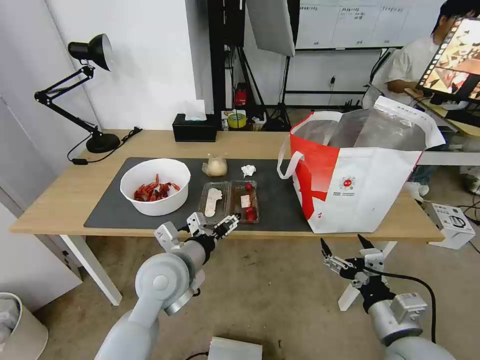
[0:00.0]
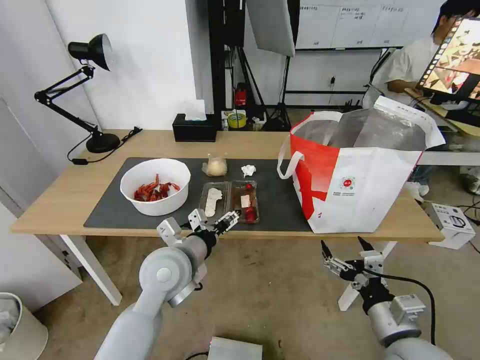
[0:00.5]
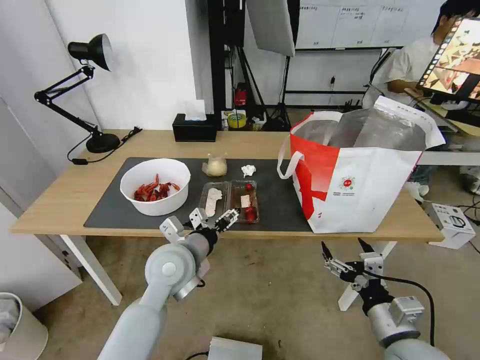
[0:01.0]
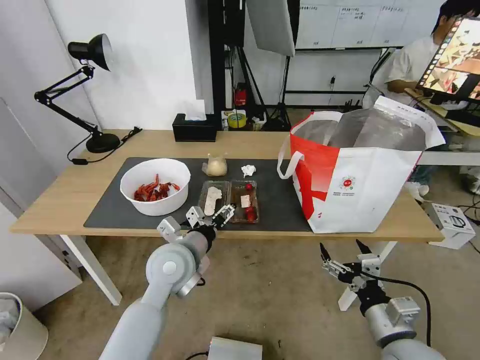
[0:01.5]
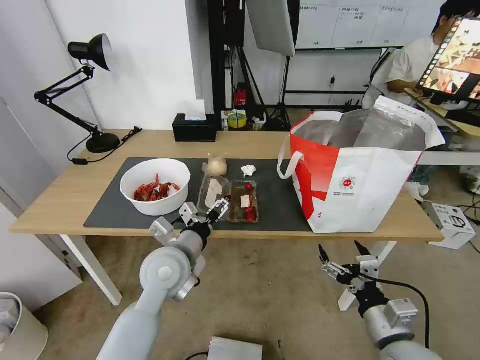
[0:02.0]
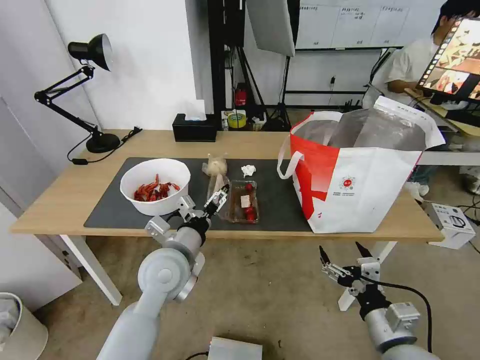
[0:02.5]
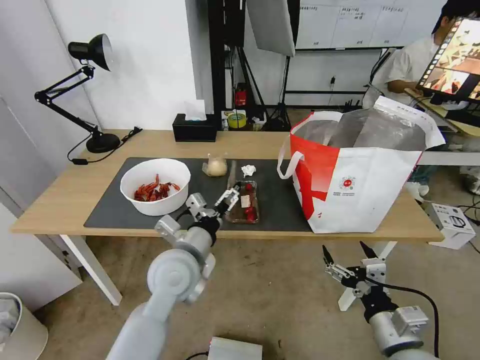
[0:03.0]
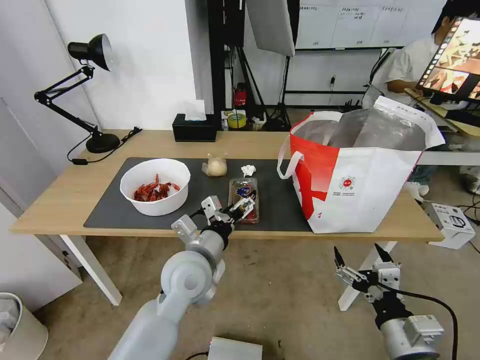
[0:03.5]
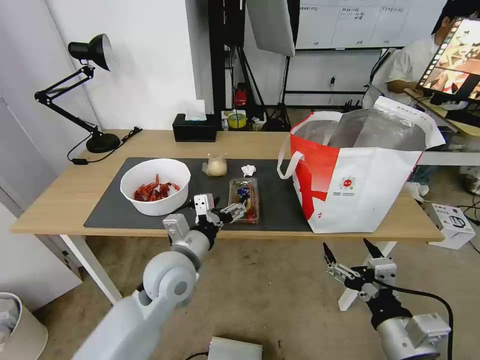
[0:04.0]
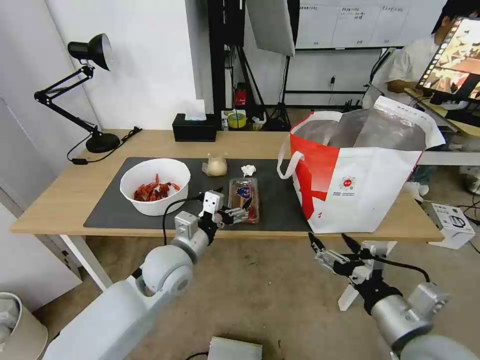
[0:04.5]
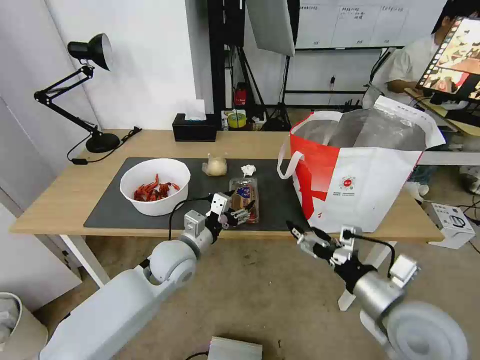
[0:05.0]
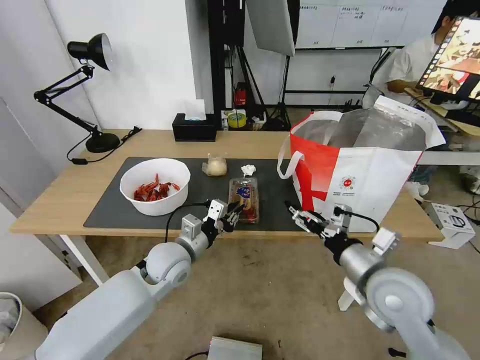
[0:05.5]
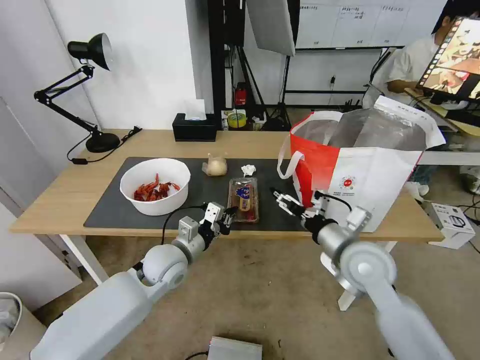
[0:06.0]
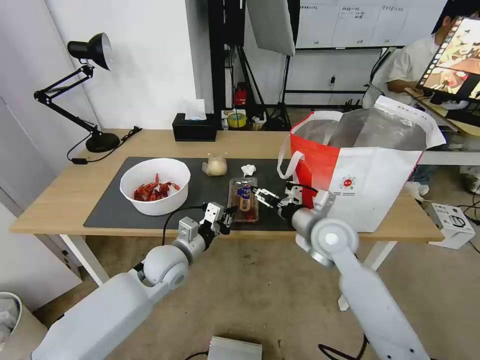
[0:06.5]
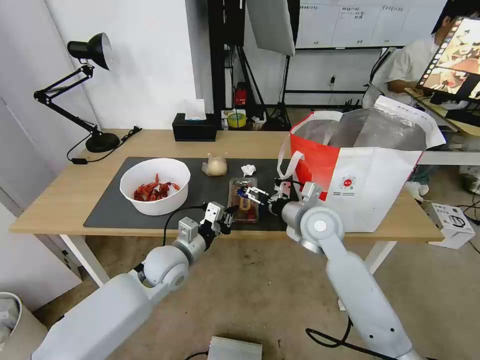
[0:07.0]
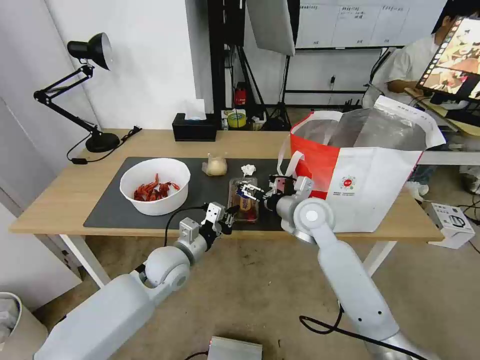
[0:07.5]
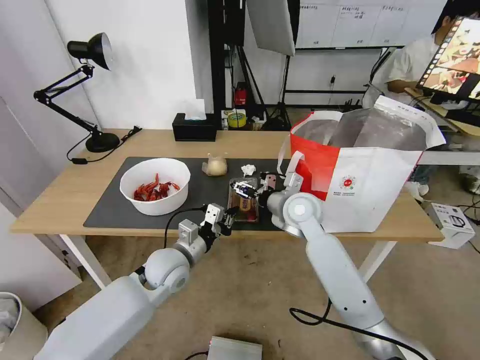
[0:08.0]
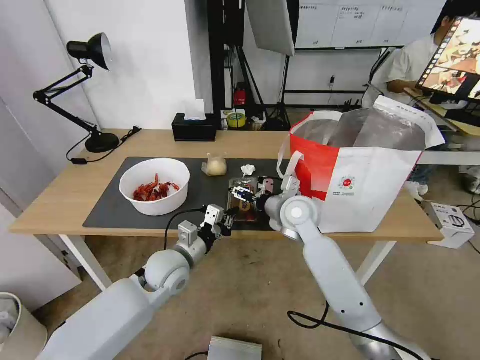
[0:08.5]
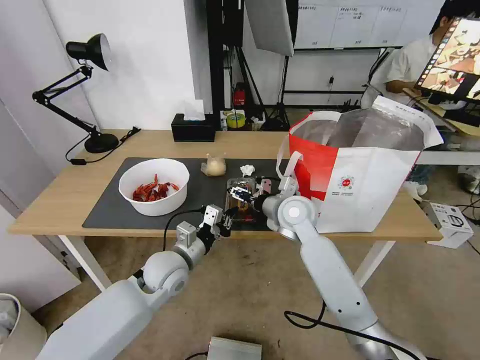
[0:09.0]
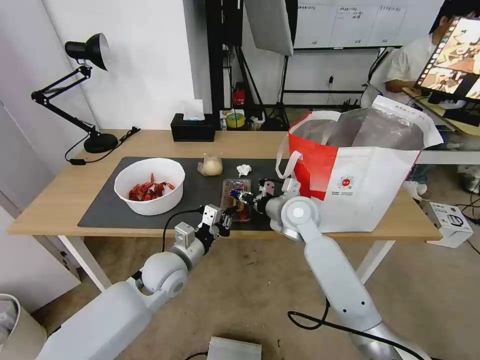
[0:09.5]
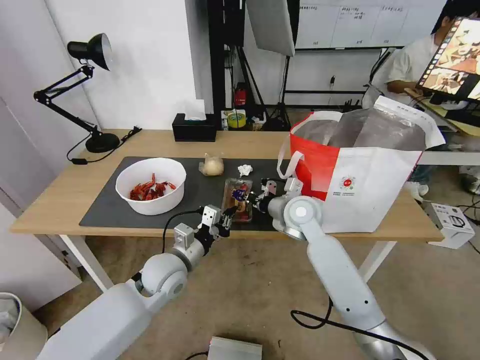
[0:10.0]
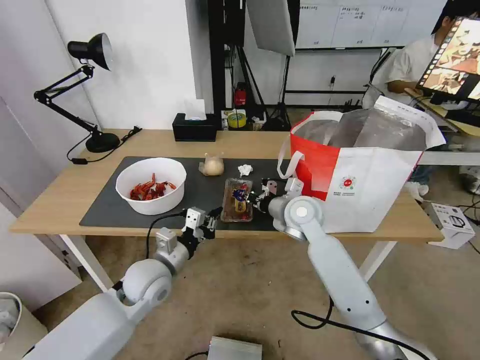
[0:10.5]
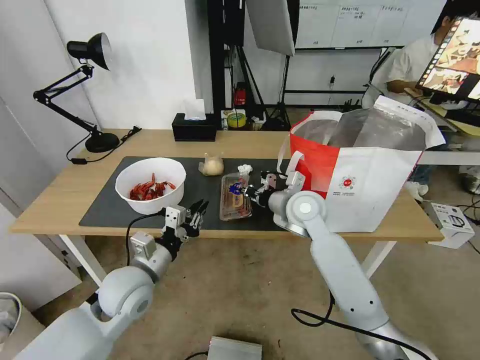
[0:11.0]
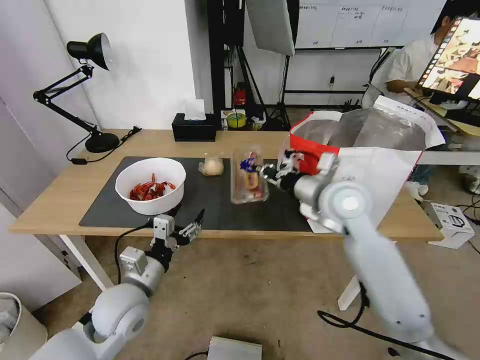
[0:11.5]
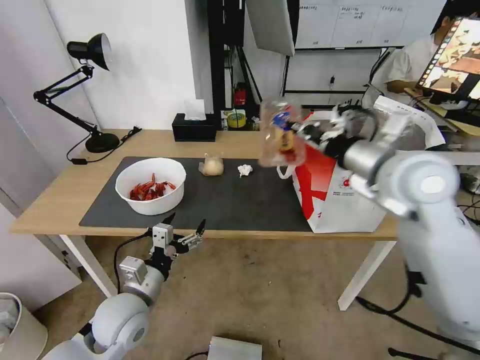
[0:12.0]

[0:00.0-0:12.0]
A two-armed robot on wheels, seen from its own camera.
Task of the whole recording: Pick up the trash from the table and place it into the takeout bag.
0:00.0 to 0:02.0: The grippers stay close to where they were, moving slightly.
0:02.0 to 0:04.0: The right gripper heads upward, covering roughly 5 cm.
0:04.0 to 0:06.0: The right gripper travels forward by about 20 cm, while the left gripper travels downward and forward by roughly 10 cm, and closes its fingers.
0:06.0 to 0:08.0: The right gripper is displaced forward and to the left by approximately 15 cm.
0:08.0 to 0:10.0: The right gripper closes up.
0:10.0 to 0:12.0: The left gripper heads backward and to the left, covering about 10 cm, and opens its fingers. Meanwhile the right gripper travels upward, to the right and backward by some 25 cm.

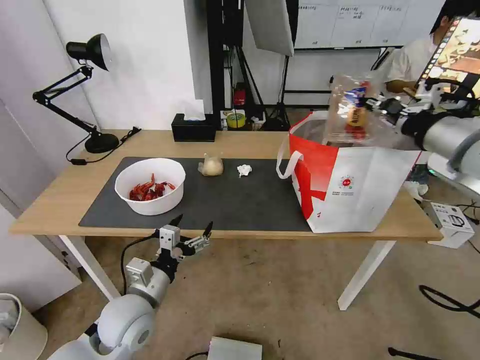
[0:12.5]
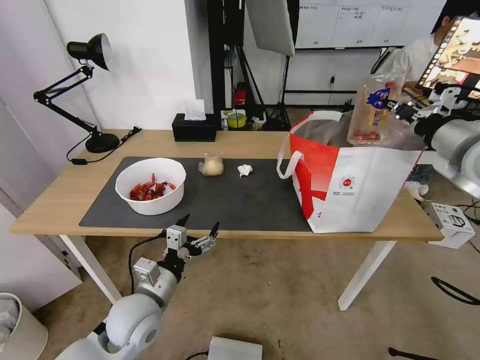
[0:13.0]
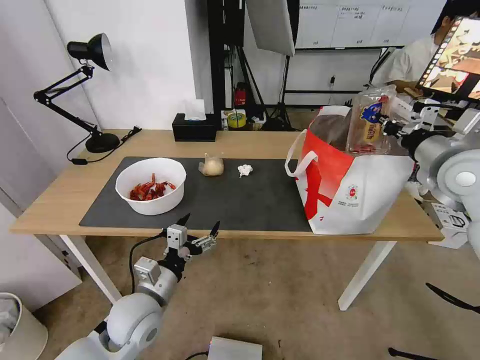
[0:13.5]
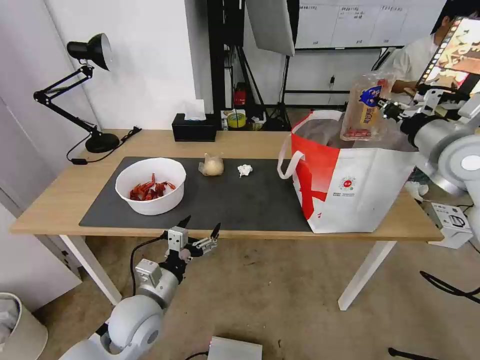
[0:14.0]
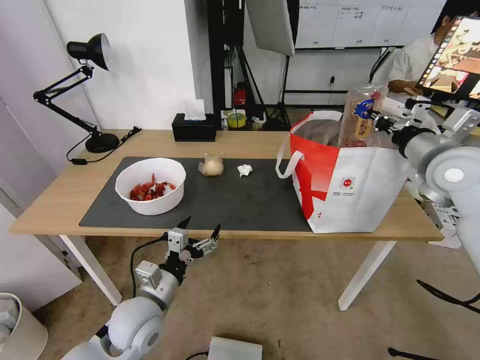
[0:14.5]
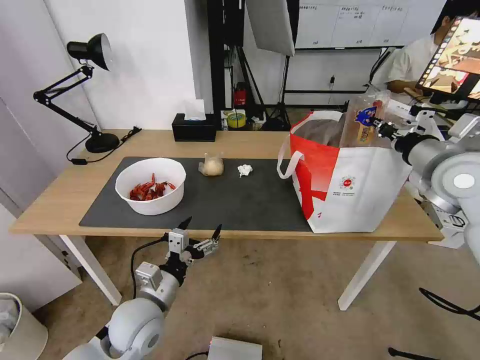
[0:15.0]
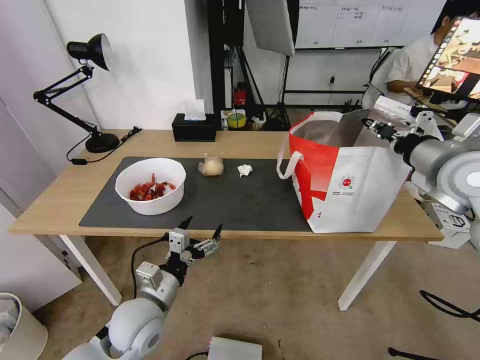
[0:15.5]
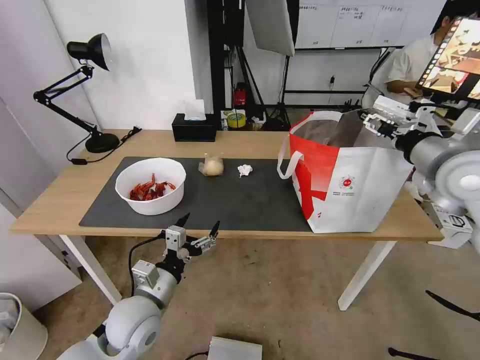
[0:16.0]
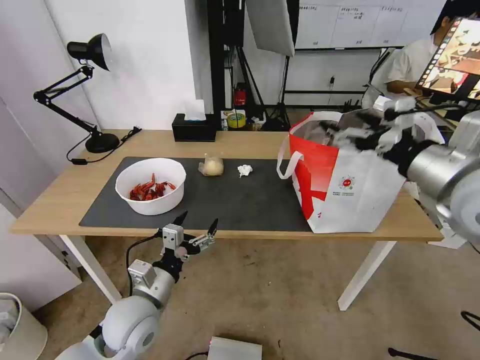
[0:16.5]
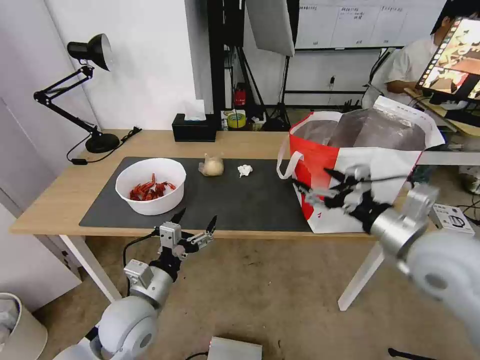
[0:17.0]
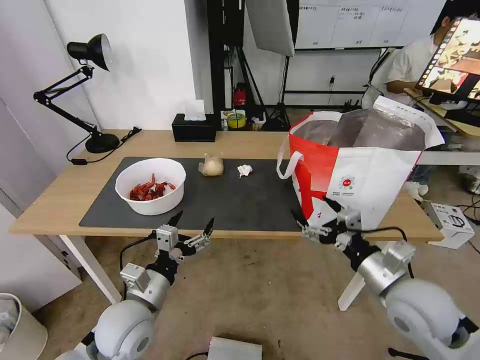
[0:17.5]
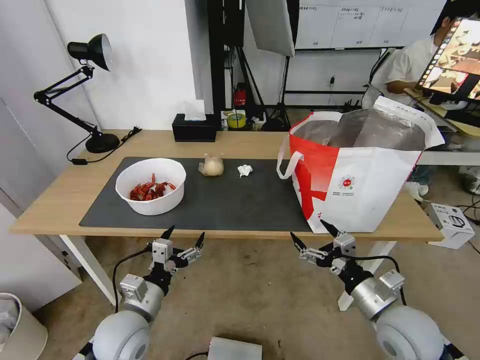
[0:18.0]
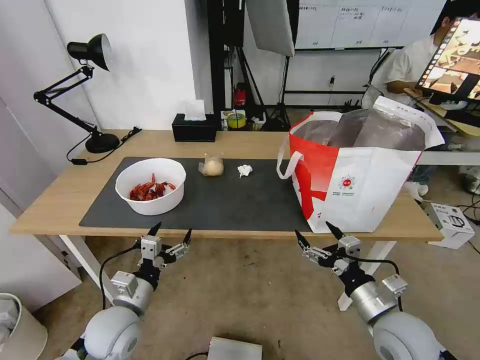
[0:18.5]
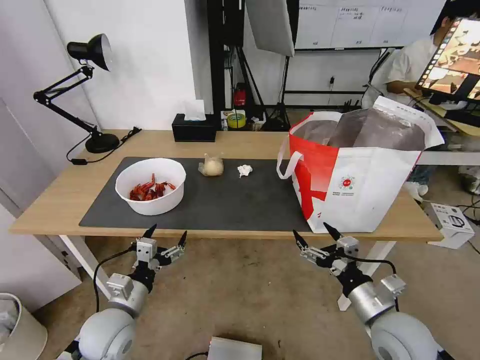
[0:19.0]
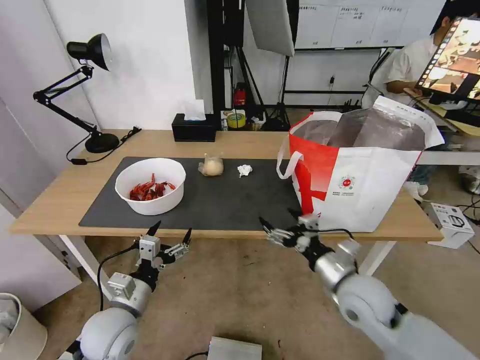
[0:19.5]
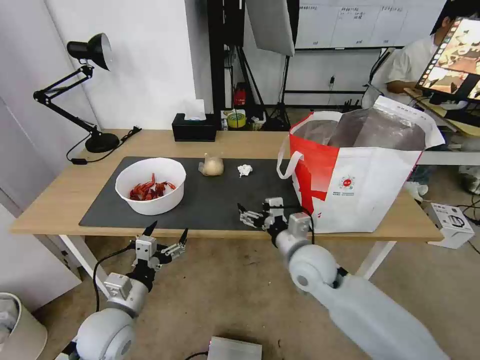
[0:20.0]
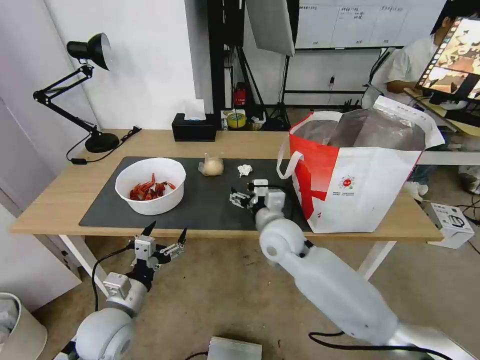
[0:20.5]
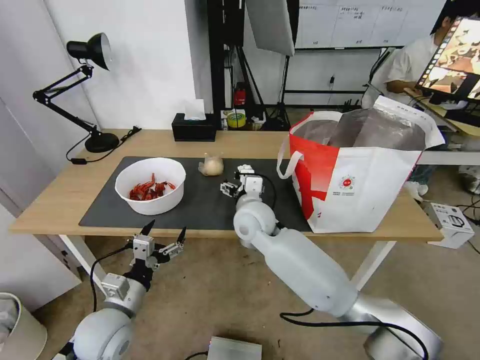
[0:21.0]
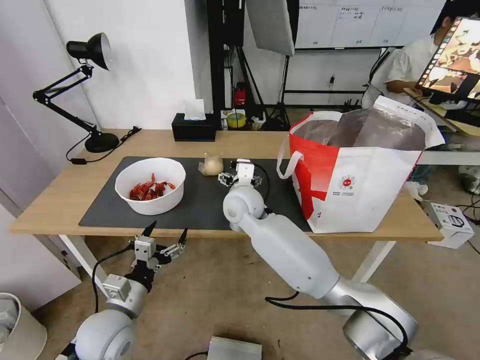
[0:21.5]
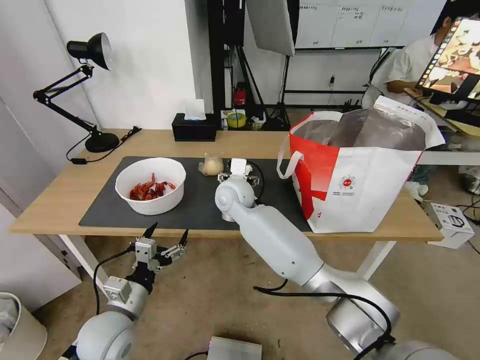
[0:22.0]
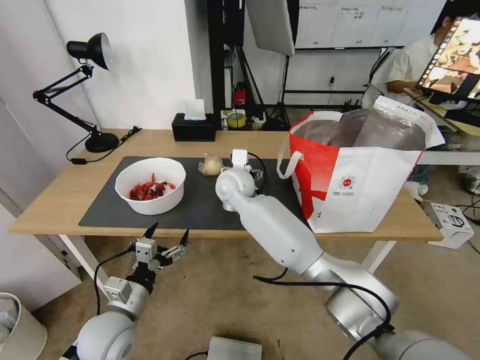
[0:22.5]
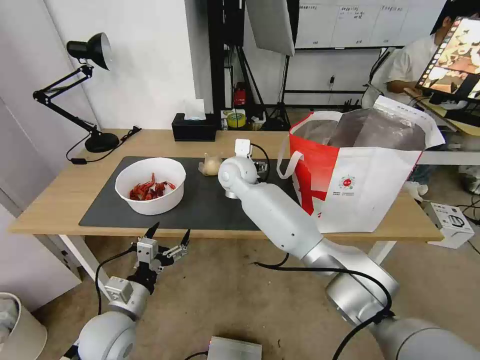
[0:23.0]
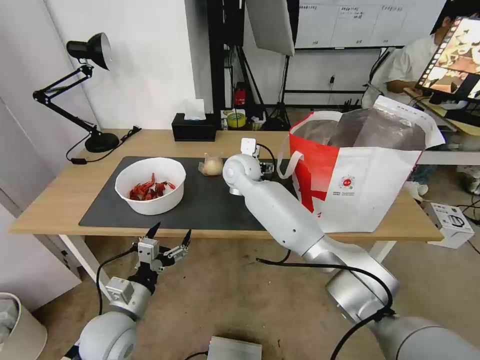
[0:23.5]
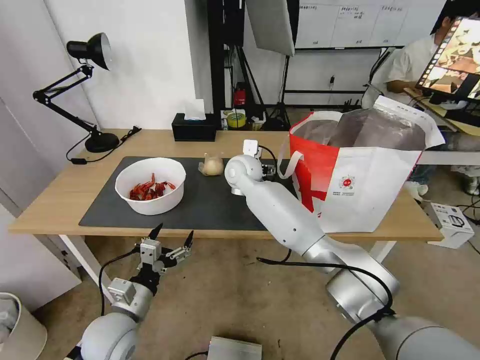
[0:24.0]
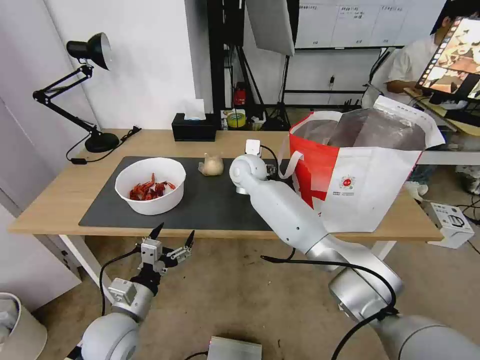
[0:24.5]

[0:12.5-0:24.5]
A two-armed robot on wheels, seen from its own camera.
Task of the whole recording: Pick up the trash from the table and place it into the takeout bag.
0:12.5 to 0:14.5: The right gripper is displaced downward and forward by about 10 cm.
0:14.5 to 0:16.5: The right gripper moves backward and to the left, roughly 10 cm, and opens.
0:16.5 to 0:18.5: The left gripper shifts by approximately 5 cm, while the right gripper heads downward, covering roughly 25 cm.
0:18.5 to 0:20.5: The right gripper moves to the left and forward, roughly 25 cm.
0:20.5 to 0:22.5: The right gripper heads forward and to the left, covering about 15 cm.
0:22.5 to 0:24.5: The right gripper moves forward, about 5 cm.

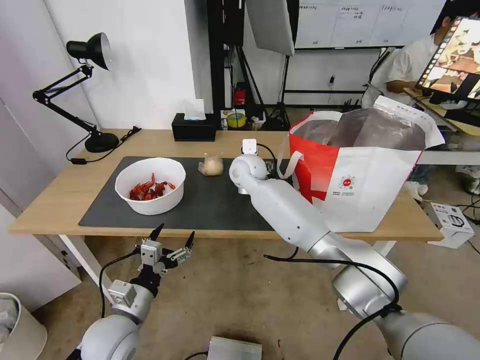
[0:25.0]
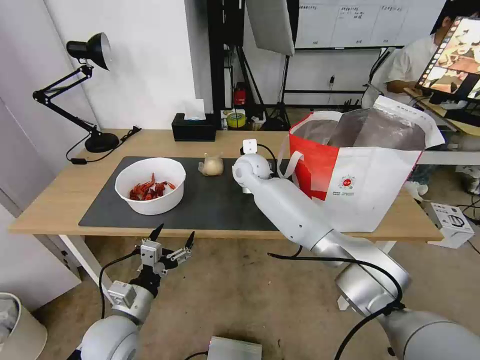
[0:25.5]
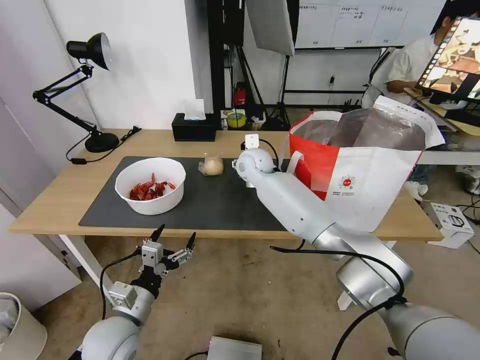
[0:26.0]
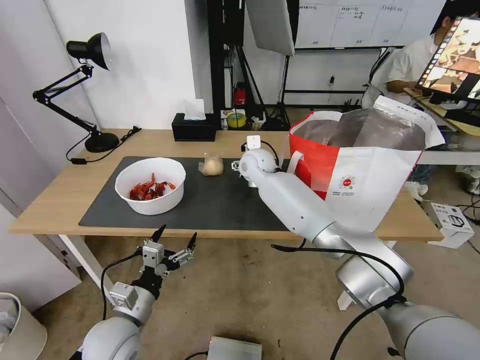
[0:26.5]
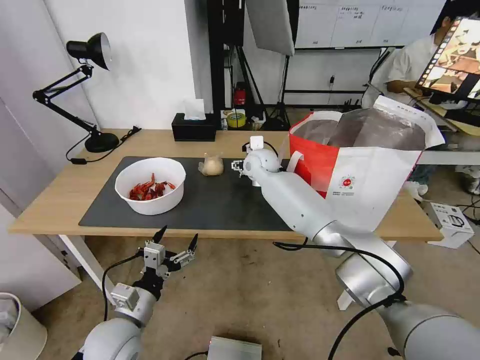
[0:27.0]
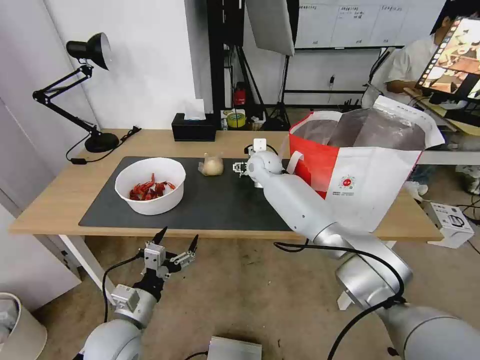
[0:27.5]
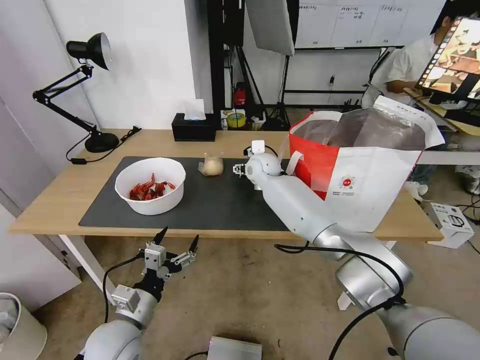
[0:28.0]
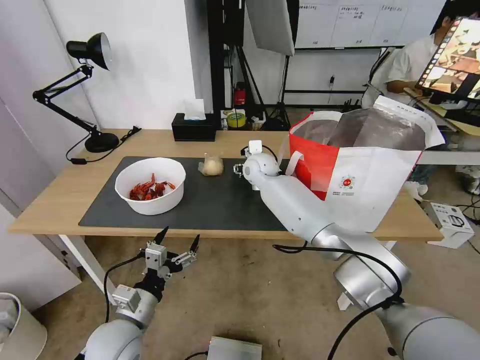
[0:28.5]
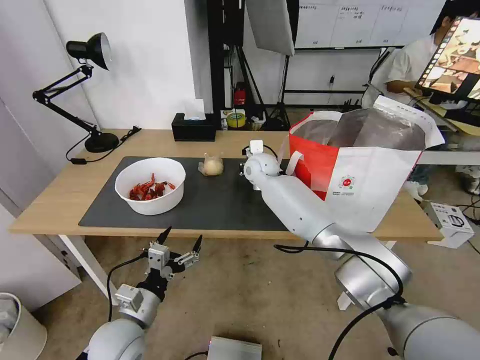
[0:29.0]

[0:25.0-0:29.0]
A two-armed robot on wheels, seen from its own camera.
Task of the whole recording: Pick up the trash from the table and place it into the takeout bag.
0:25.0 to 0:27.0: The right gripper changes place by roughly 5 cm.
0:27.0 to 0:29.0: The right gripper closes its fingers.
